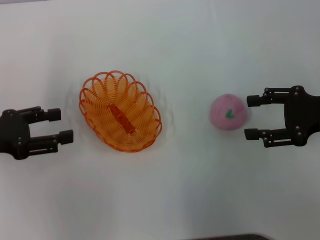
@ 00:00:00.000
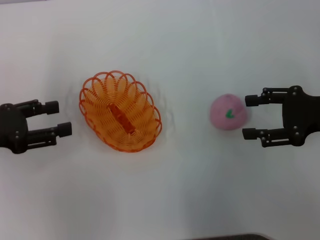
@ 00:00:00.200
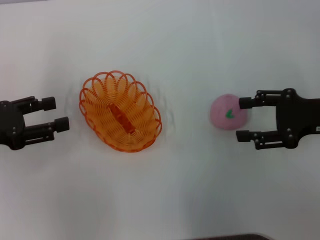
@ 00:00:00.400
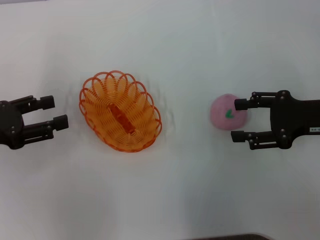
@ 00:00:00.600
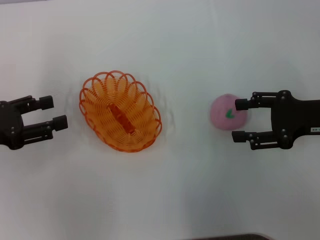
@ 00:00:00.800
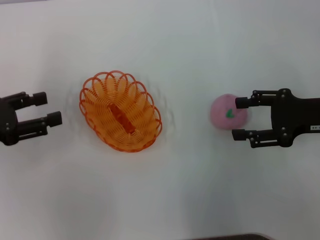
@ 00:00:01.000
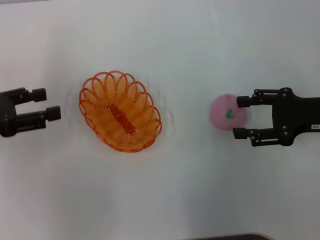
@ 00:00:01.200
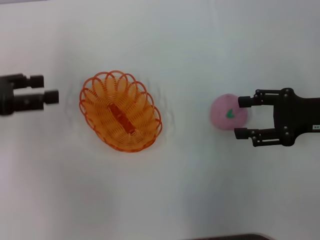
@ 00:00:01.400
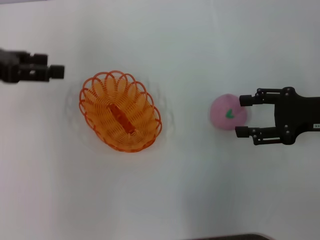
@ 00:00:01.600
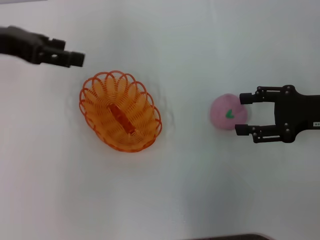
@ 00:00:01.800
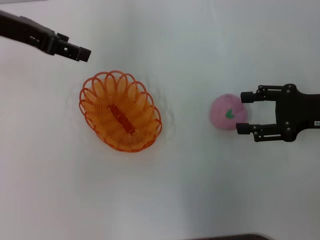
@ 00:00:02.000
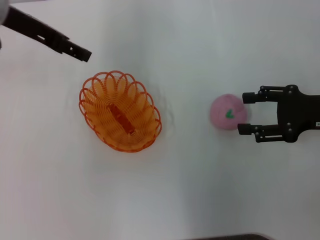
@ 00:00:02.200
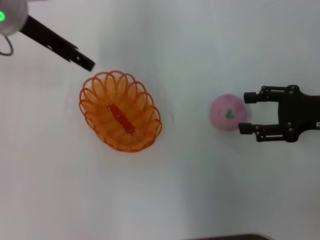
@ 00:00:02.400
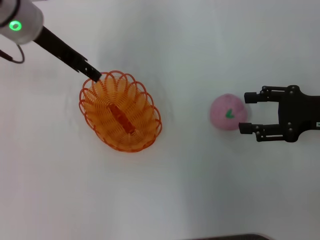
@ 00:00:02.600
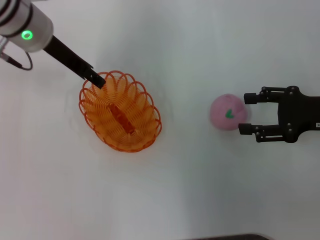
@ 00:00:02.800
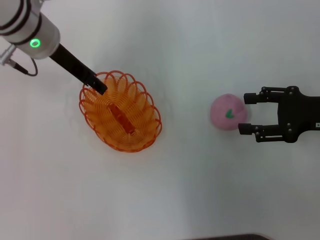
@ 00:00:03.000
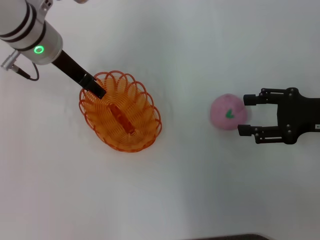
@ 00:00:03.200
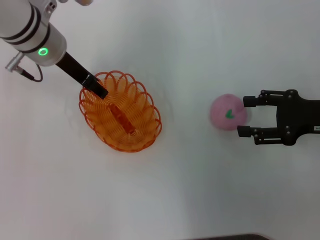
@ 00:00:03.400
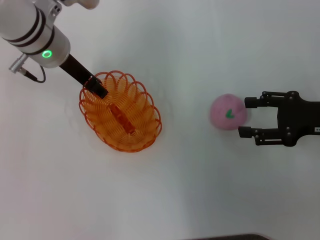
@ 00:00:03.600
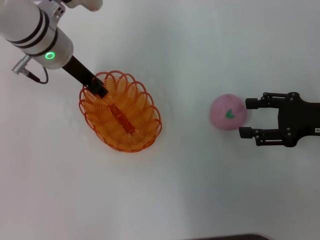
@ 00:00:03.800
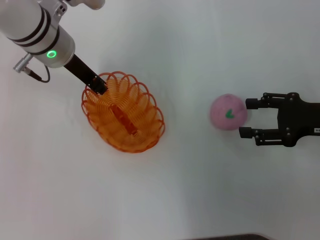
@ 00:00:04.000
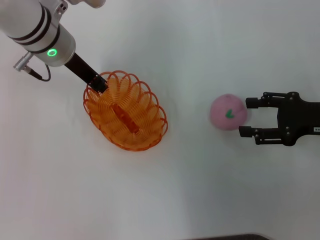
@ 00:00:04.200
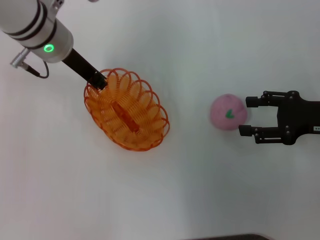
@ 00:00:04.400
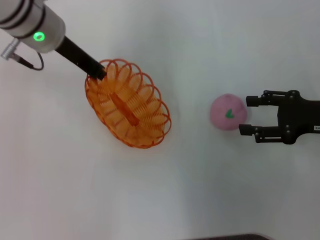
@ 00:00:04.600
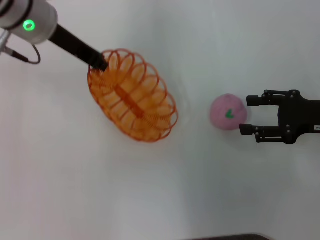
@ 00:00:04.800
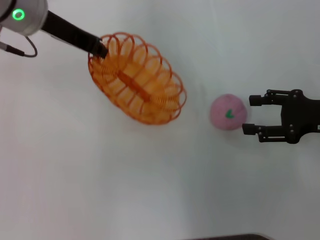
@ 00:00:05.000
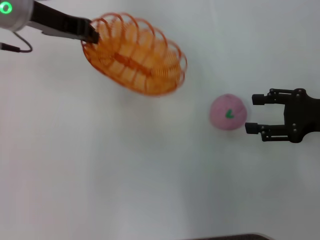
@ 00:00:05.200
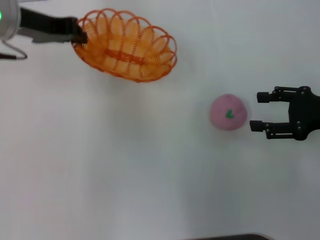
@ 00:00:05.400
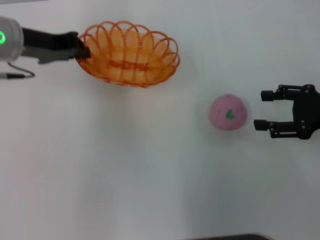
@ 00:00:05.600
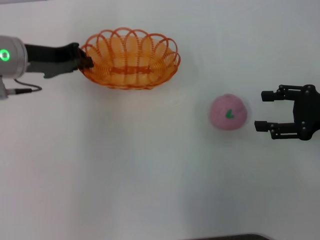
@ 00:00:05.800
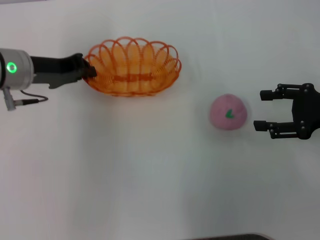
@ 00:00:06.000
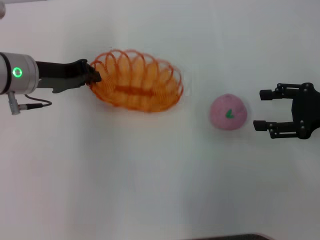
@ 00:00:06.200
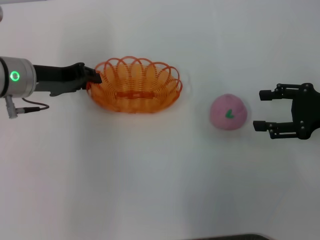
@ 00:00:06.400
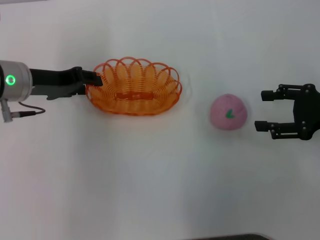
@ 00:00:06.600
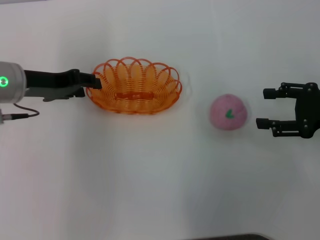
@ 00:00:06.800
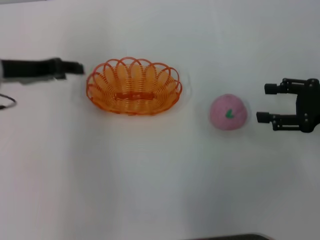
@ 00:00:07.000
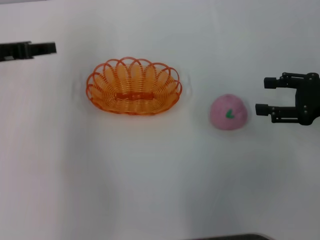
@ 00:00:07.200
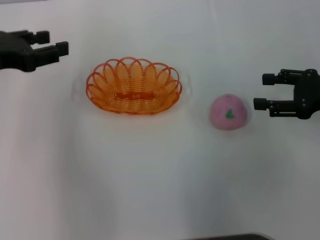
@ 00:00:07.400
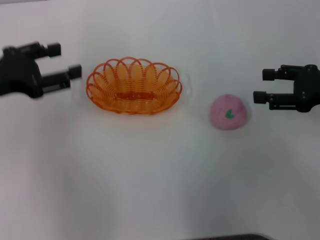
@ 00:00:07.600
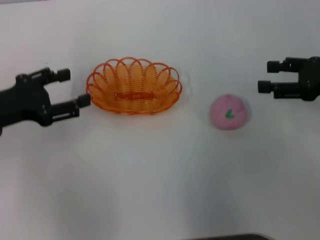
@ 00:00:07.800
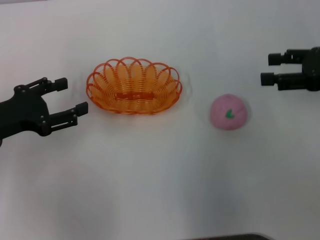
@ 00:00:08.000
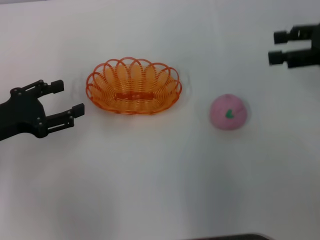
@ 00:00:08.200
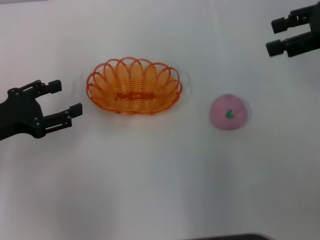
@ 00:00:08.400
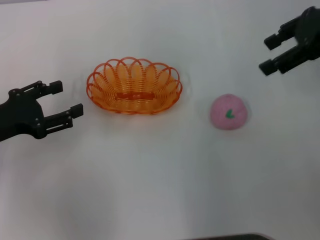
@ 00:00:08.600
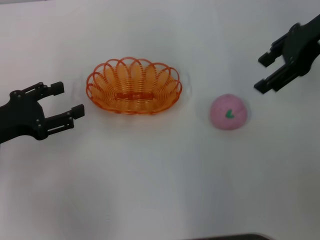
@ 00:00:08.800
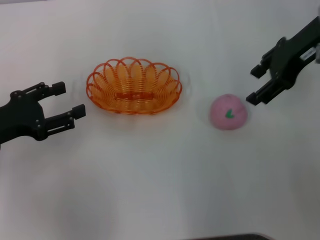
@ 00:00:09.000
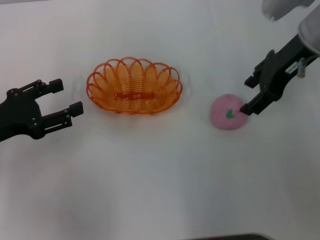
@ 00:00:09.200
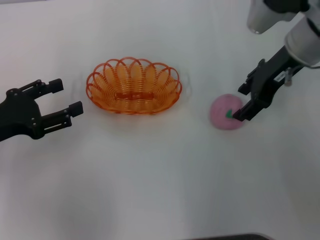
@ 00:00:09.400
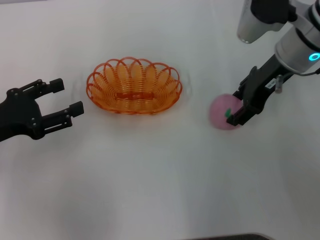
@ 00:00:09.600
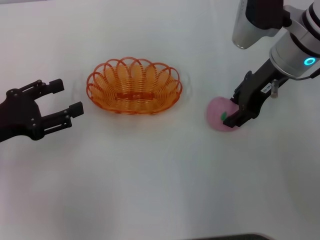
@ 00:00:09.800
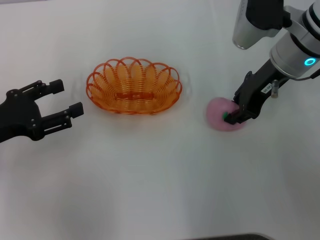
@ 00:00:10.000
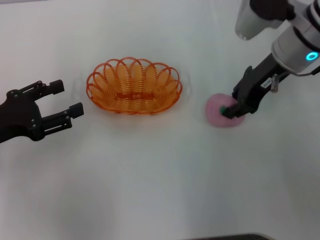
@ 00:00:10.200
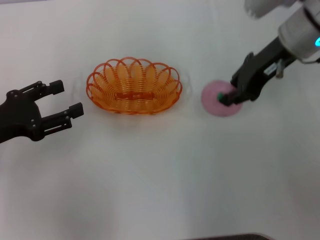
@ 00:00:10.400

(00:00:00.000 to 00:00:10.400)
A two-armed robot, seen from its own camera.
Step, 00:00:00.000 - 00:00:05.200: Pick up the basket with the left gripper.
Step, 00:00:05.400 - 00:00:07.000: Place the basket in the center of view with the left gripper.
00:00:00.000 - 00:00:01.400: The left gripper changes place by roughly 5 cm.
00:00:01.400 - 00:00:03.000: The left gripper shifts roughly 20 cm to the right and forward.
00:00:03.000 - 00:00:04.400: The left gripper closes its fingers.
00:00:04.400 - 00:00:06.000: The left gripper moves to the left, roughly 5 cm.
00:00:06.000 - 00:00:07.400: The left gripper heads to the left, upward and backward, covering approximately 10 cm, and opens its fingers.
00:00:07.400 - 00:00:09.000: The left gripper goes roughly 10 cm downward and backward. Meanwhile the right gripper shifts approximately 15 cm upward, to the left and forward.
00:00:09.000 - 00:00:10.400: The right gripper closes up.

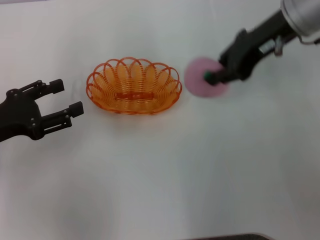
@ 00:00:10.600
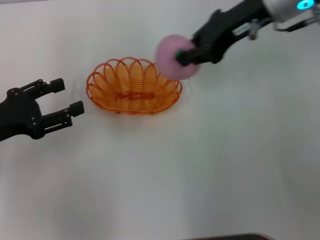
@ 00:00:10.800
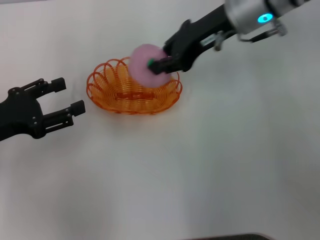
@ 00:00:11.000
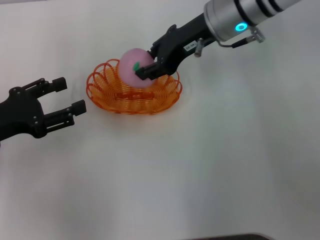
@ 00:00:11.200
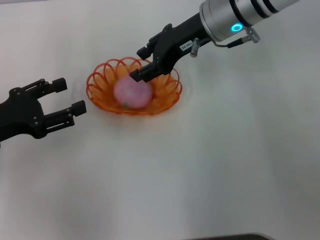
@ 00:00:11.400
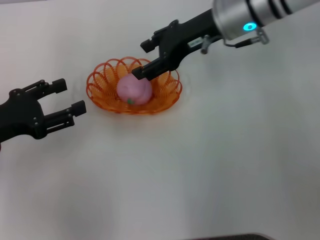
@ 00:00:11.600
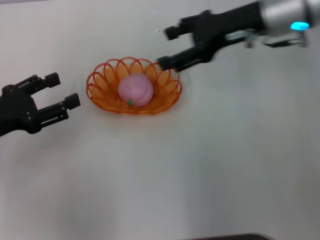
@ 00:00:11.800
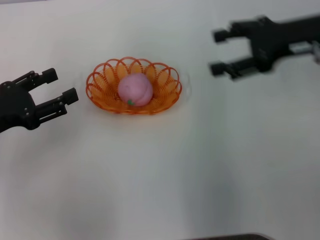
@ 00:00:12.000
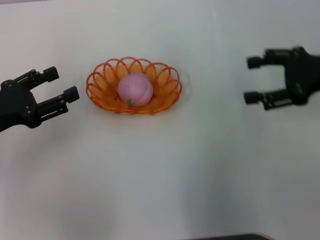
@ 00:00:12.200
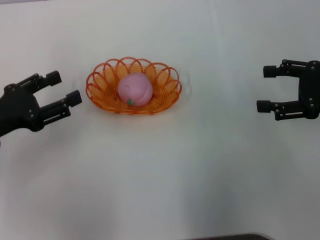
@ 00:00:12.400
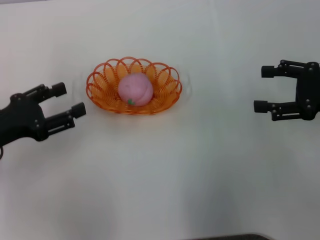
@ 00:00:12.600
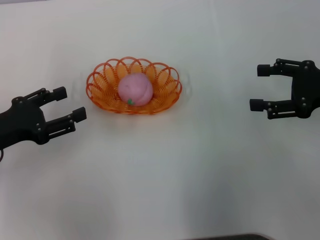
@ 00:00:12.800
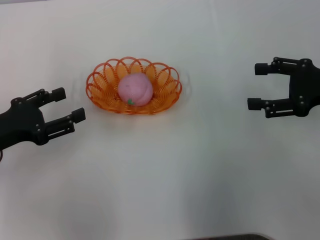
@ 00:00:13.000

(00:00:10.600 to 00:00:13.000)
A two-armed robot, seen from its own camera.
Step, 00:00:10.600 - 00:00:12.000: Place the peach into the basket with the right gripper.
00:00:10.600 - 00:00:11.800: The right gripper moves approximately 10 cm to the left and comes back, and opens.
00:00:11.800 - 00:00:13.000: The right gripper heads to the right, backward and downward, covering roughly 15 cm.
